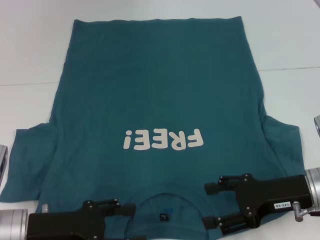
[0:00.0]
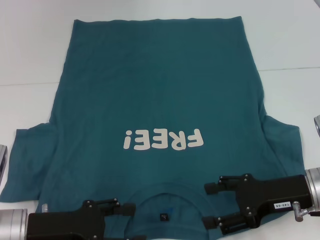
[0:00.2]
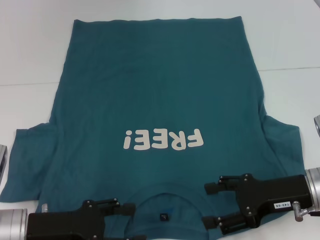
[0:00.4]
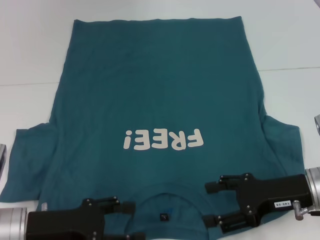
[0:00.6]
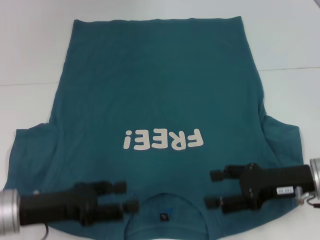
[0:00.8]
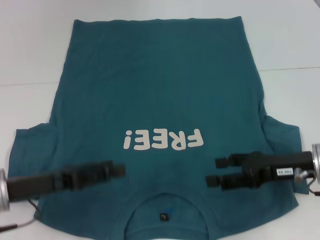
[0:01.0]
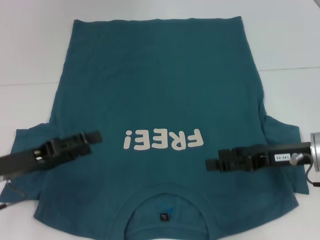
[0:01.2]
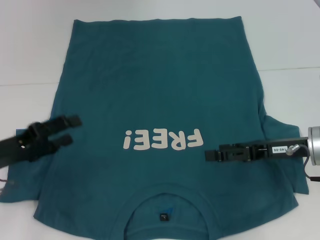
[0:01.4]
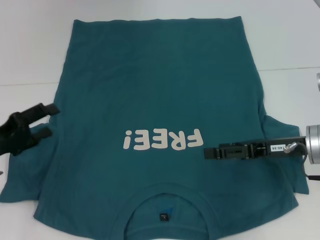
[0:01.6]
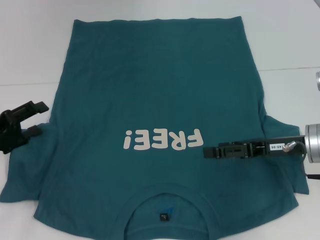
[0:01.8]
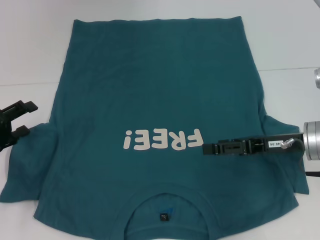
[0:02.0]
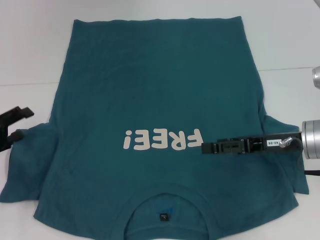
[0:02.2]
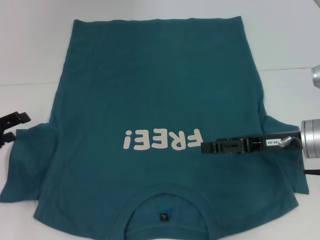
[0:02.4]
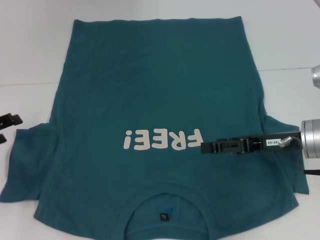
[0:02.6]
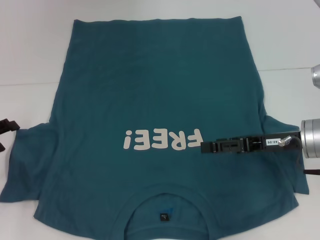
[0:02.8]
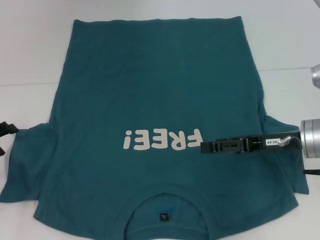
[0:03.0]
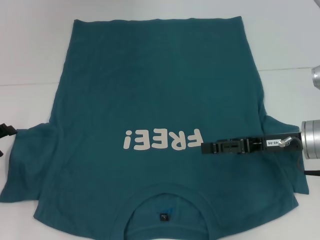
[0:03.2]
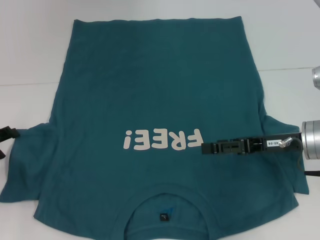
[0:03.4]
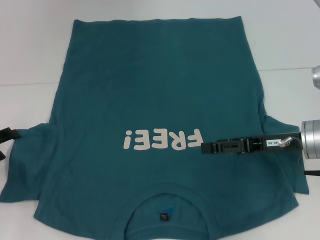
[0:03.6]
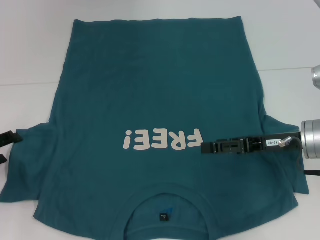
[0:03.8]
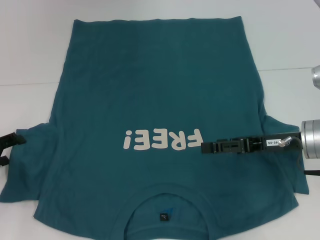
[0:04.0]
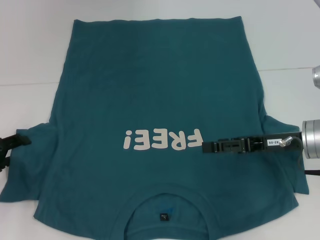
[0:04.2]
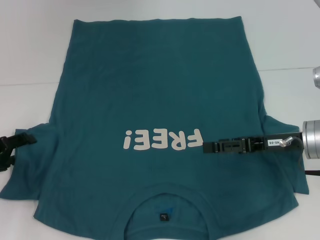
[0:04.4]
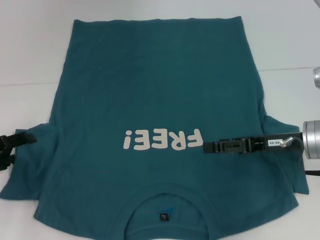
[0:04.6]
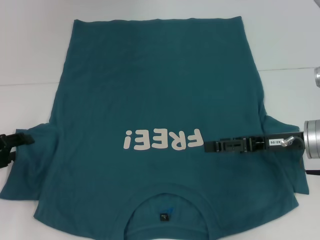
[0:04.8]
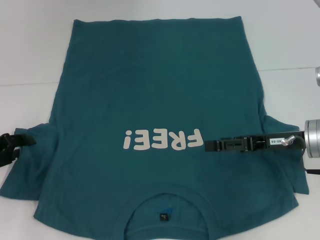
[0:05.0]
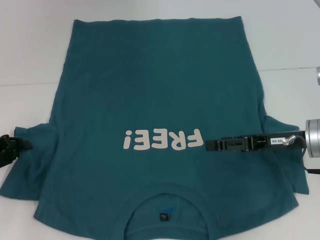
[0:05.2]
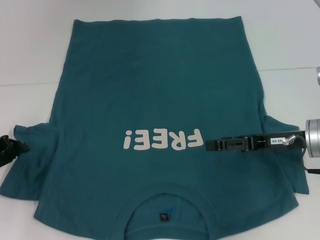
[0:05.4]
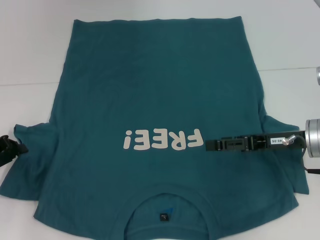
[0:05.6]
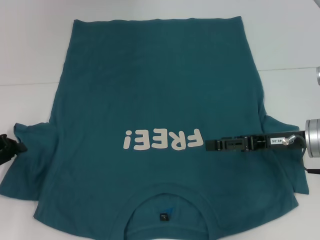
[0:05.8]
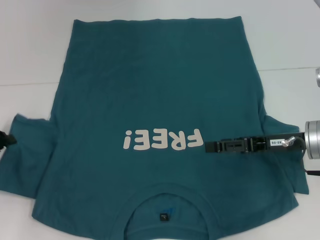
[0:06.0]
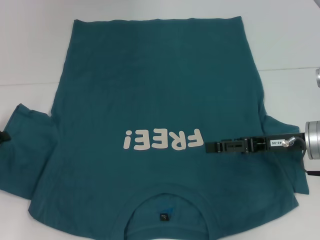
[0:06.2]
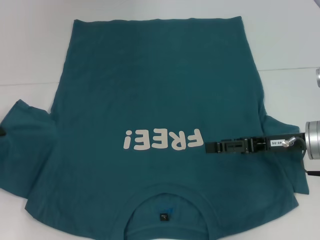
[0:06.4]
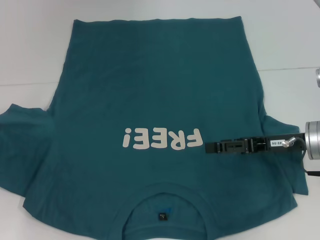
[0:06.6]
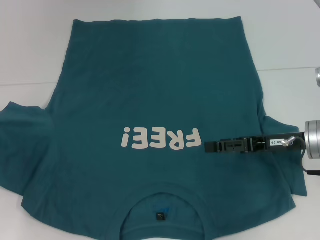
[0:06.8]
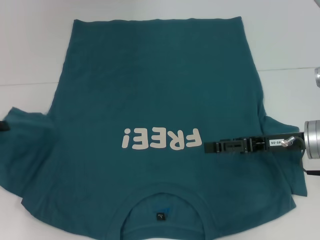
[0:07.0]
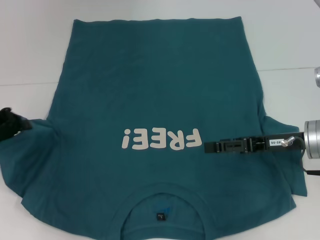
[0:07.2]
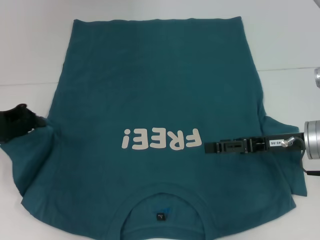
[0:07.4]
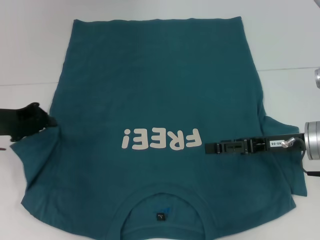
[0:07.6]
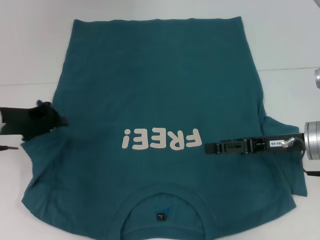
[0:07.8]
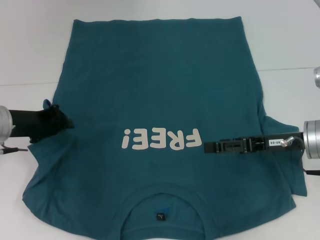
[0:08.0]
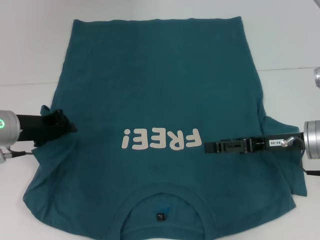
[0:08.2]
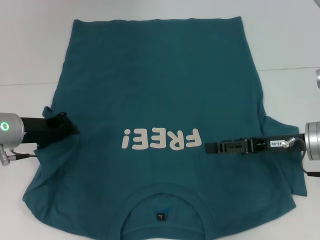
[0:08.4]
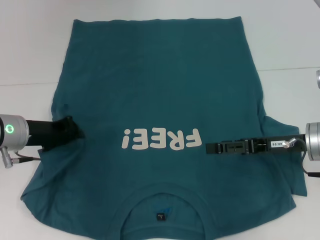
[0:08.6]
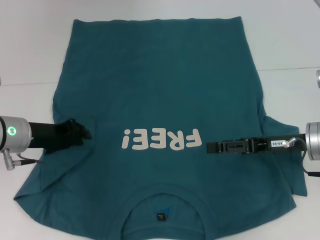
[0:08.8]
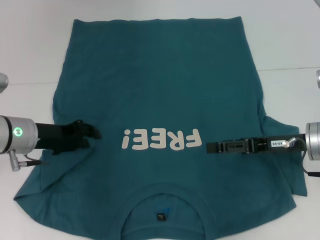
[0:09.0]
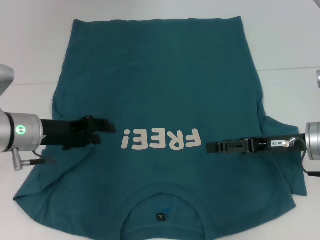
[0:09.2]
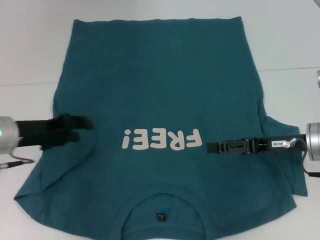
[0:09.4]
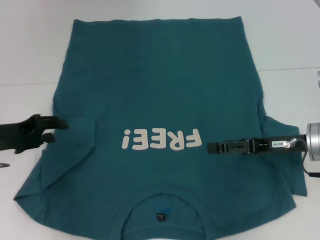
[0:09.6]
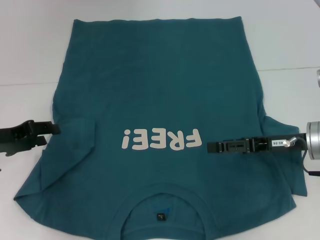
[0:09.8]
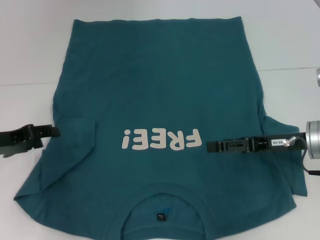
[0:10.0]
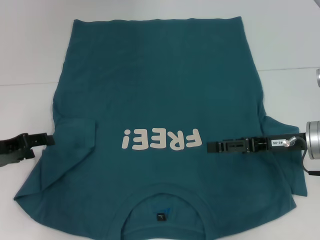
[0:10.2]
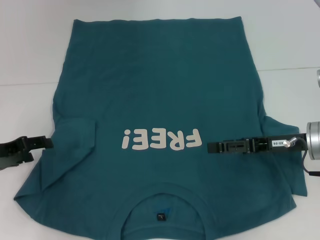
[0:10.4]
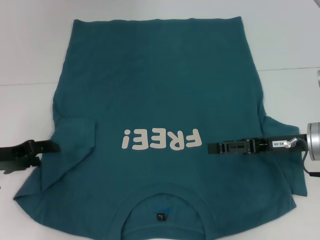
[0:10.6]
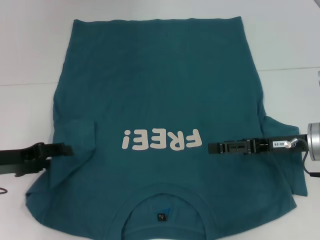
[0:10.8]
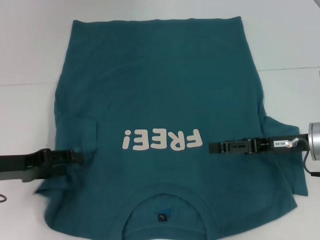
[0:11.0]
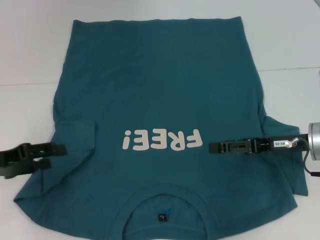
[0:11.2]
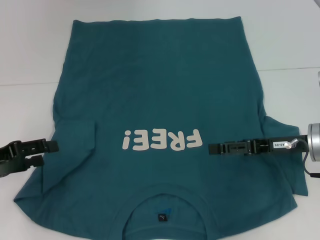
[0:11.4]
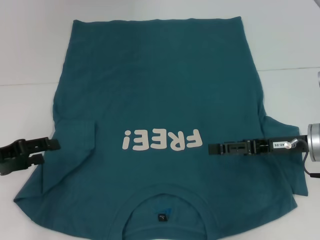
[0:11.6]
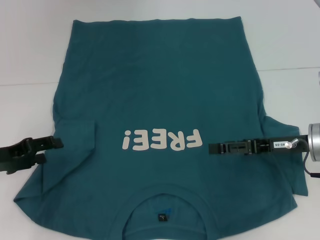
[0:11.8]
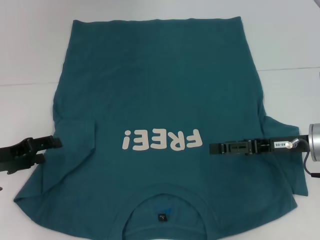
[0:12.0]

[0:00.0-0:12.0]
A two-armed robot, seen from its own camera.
0:00.0 to 0:01.6: The right gripper shifts by approximately 5 cm, while the left gripper shifts roughly 10 cm to the left and forward.
0:01.6 to 0:03.0: The left gripper heads to the left, covering approximately 5 cm.
0:03.0 to 0:04.4: The grippers stay close to where they were, moving slightly.
0:04.4 to 0:06.0: The left gripper closes.
0:06.0 to 0:07.6: The left gripper travels to the right by about 5 cm.
0:07.6 to 0:09.0: The left gripper is displaced to the right by roughly 5 cm.
0:09.0 to 0:10.4: The left gripper goes some 10 cm to the left, and opens up.
0:10.4 to 0:12.0: The grippers stay close to where they were, moving slightly.

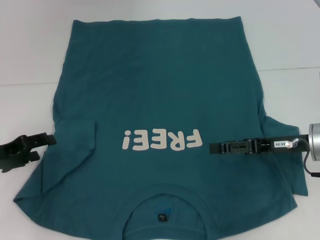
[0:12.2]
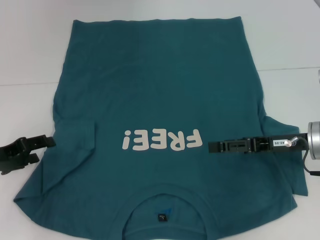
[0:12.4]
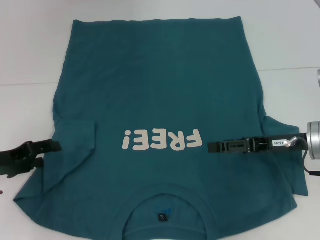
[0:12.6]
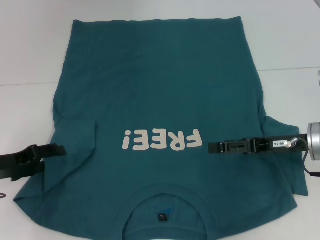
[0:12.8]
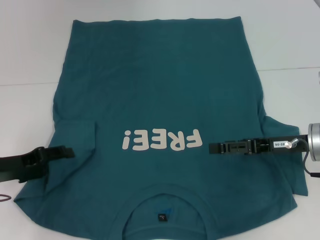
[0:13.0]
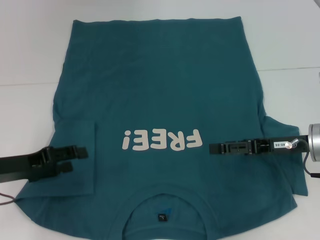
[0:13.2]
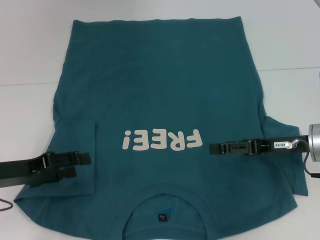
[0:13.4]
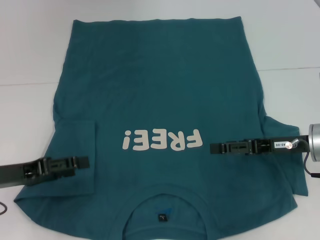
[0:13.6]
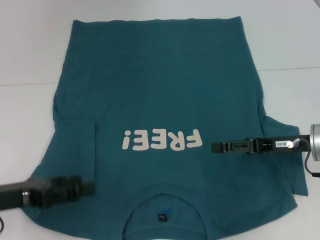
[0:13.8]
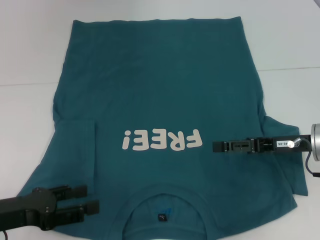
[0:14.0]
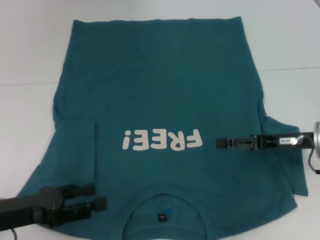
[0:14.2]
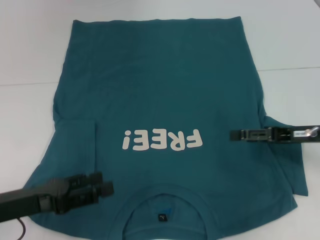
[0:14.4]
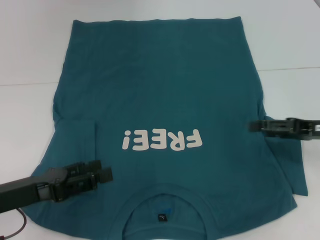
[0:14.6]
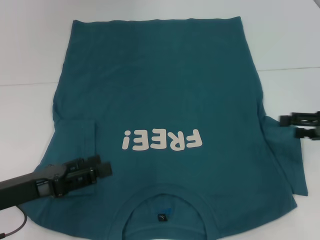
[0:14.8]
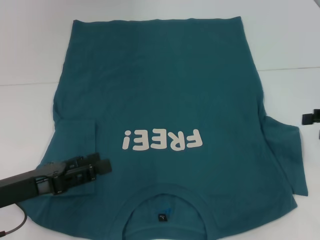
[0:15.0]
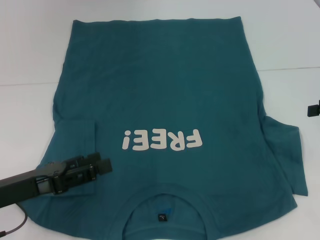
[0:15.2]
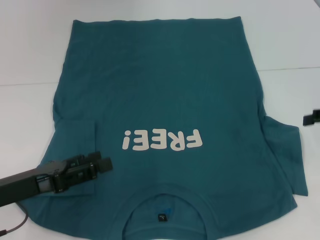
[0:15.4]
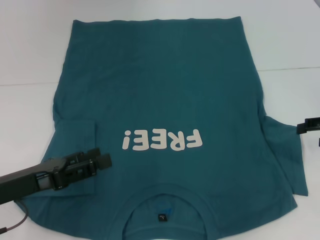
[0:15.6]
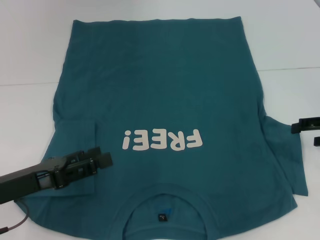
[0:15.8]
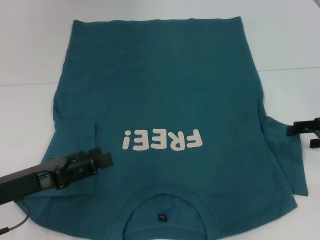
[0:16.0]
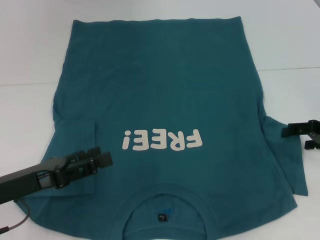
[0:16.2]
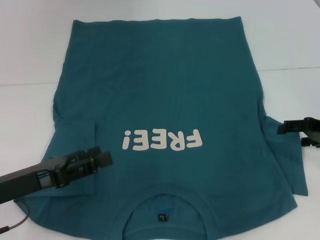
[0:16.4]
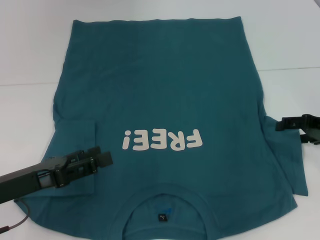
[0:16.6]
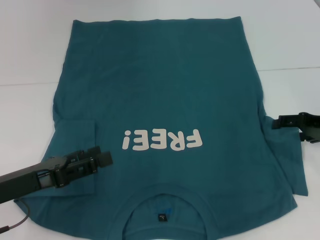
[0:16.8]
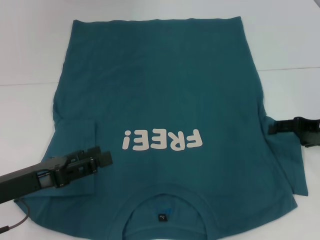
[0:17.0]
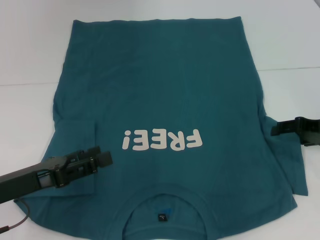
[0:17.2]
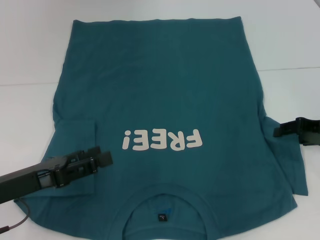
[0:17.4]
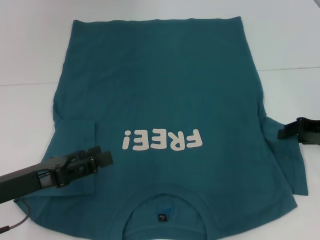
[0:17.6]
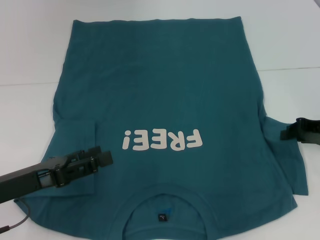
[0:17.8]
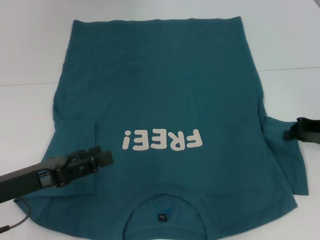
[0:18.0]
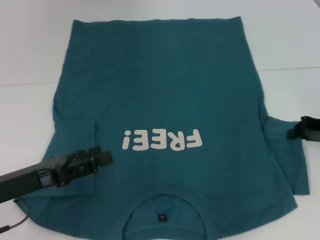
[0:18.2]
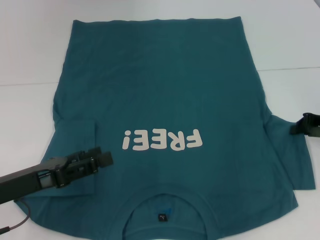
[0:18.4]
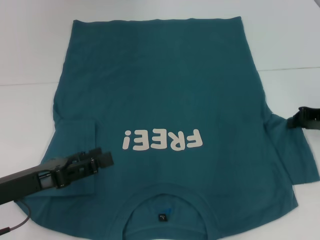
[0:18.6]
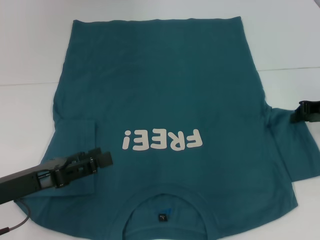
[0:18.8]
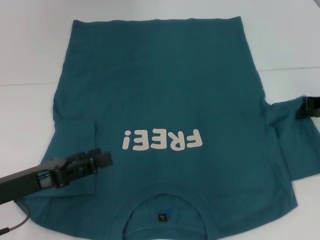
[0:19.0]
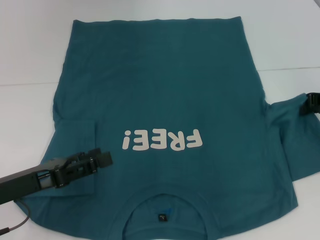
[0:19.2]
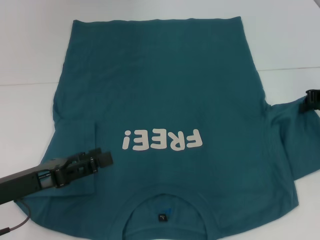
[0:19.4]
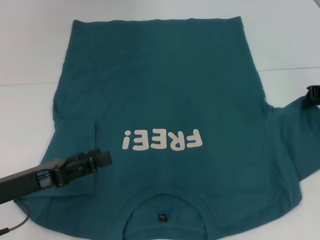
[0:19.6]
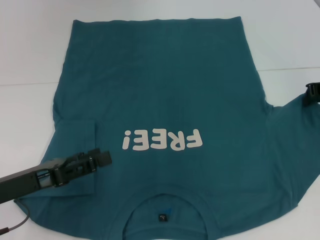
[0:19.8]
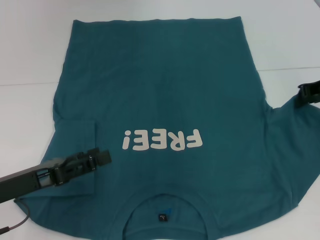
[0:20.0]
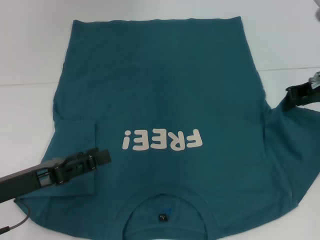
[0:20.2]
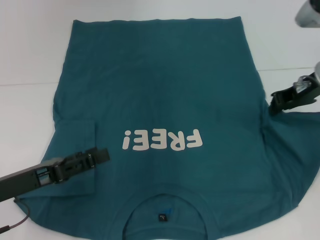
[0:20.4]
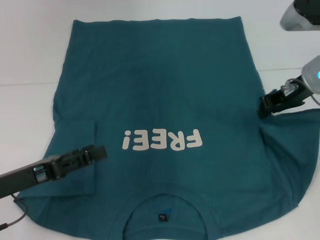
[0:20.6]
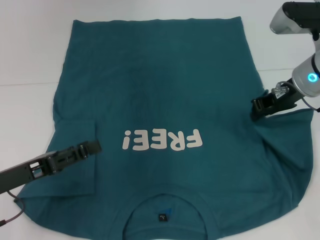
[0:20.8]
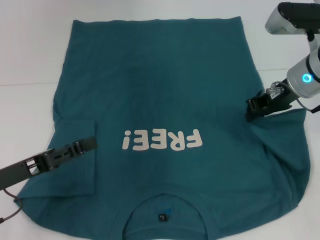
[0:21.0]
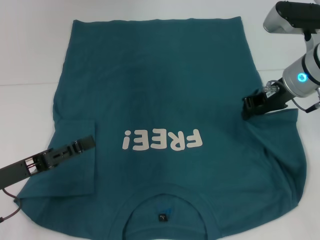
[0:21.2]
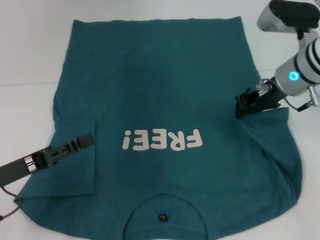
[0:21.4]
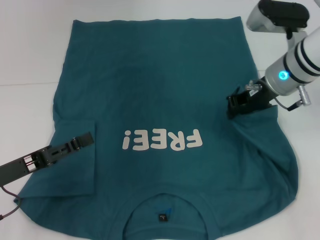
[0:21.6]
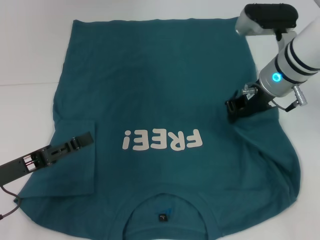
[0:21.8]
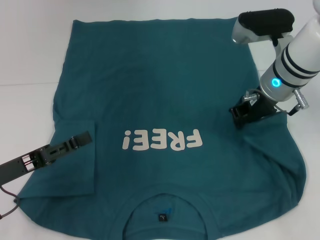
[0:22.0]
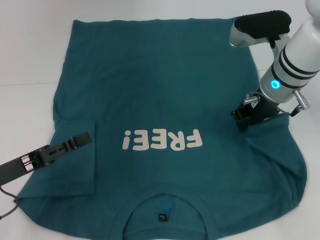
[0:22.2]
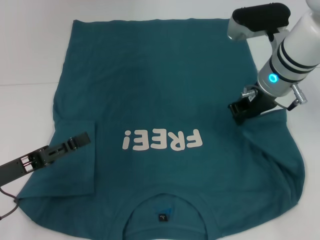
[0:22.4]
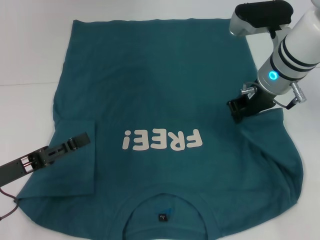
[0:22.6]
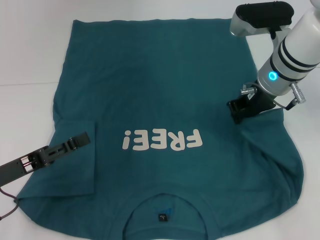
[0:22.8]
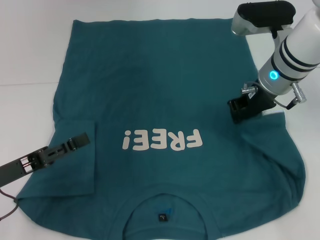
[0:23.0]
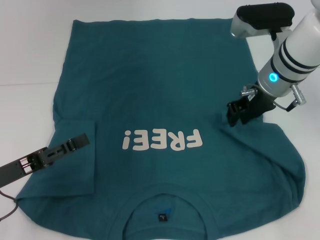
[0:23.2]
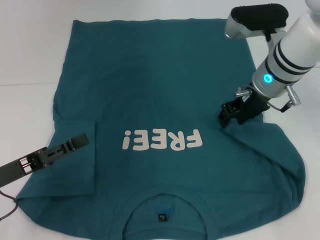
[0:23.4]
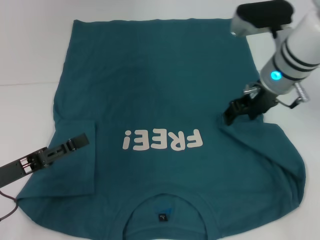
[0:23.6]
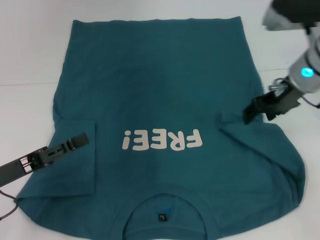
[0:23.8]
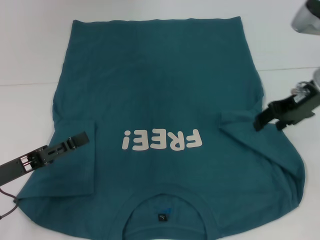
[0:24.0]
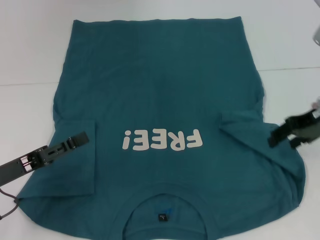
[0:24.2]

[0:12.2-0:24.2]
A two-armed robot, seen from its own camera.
Step, 0:12.2 to 0:14.4: Fold the bottom left sleeve with your left hand.
0:12.2 to 0:13.8: The left gripper moves backward, approximately 5 cm.
0:13.8 to 0:15.2: The right gripper is displaced to the right and upward by roughly 15 cm.
0:15.2 to 0:16.6: The right gripper goes roughly 5 cm downward.
0:16.6 to 0:18.2: The right gripper closes.
0:18.2 to 0:19.8: The right gripper moves upward and forward, approximately 10 cm.
0:19.8 to 0:21.2: The right gripper heads to the left, covering about 10 cm.
0:21.2 to 0:22.6: The right gripper ends up some 5 cm from where it was.
0:22.6 to 0:24.2: The right gripper goes some 10 cm to the right, and opens its fingers.
